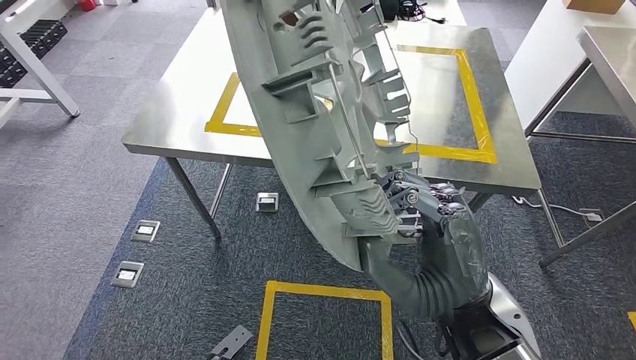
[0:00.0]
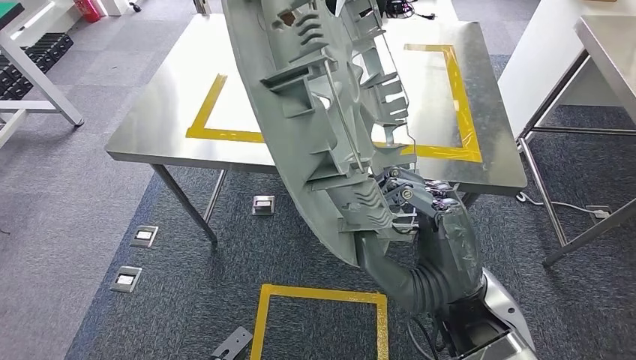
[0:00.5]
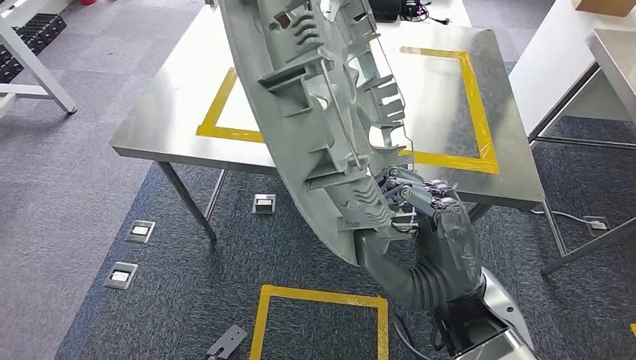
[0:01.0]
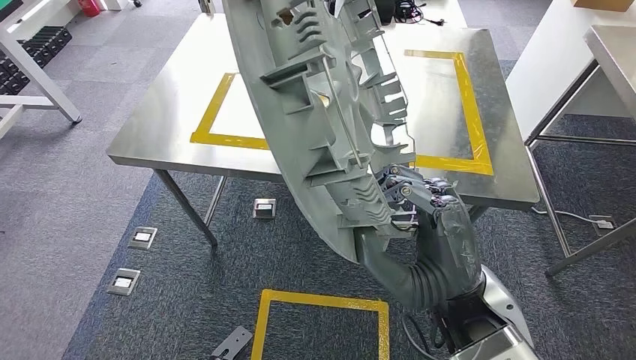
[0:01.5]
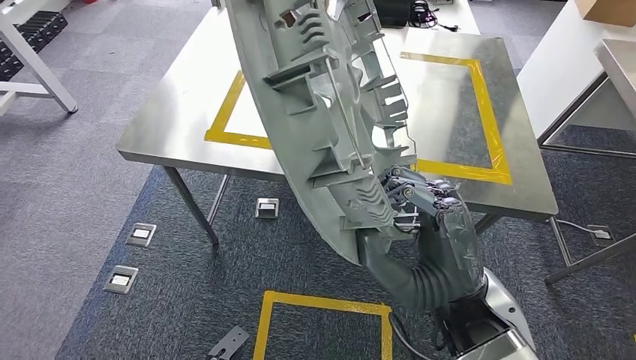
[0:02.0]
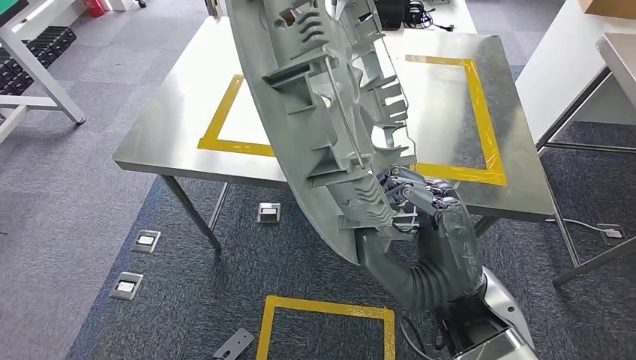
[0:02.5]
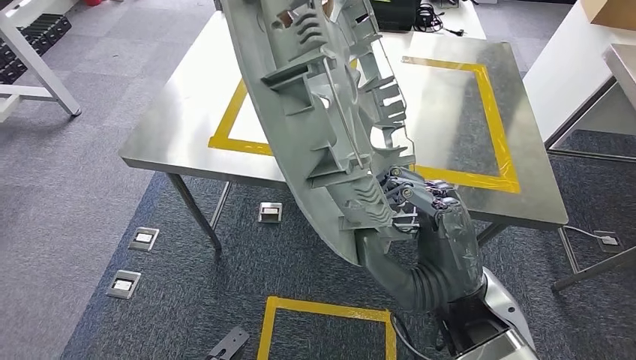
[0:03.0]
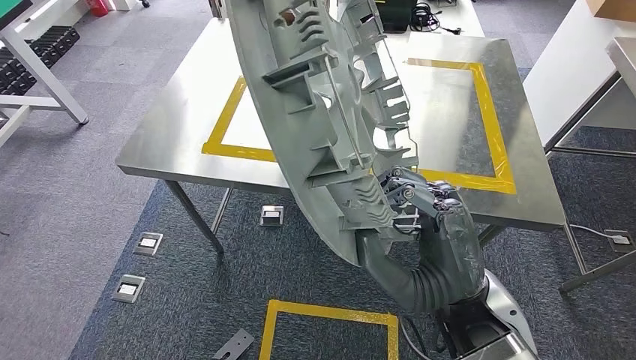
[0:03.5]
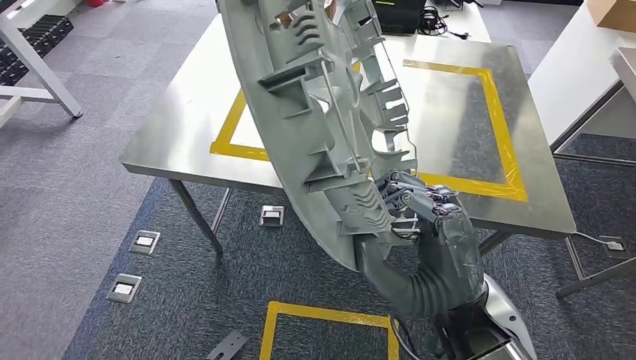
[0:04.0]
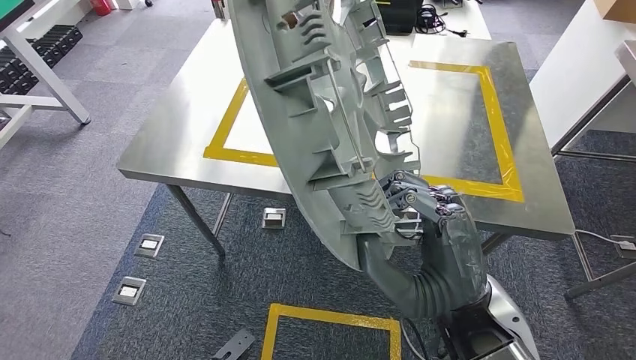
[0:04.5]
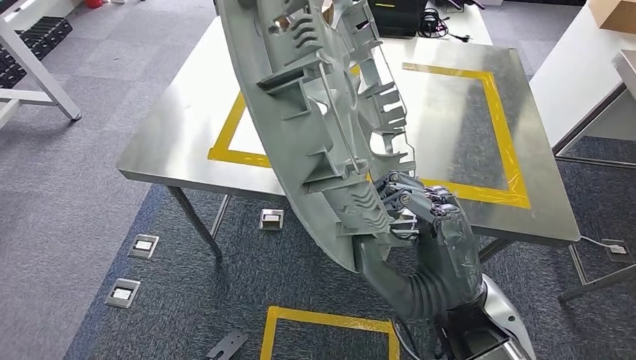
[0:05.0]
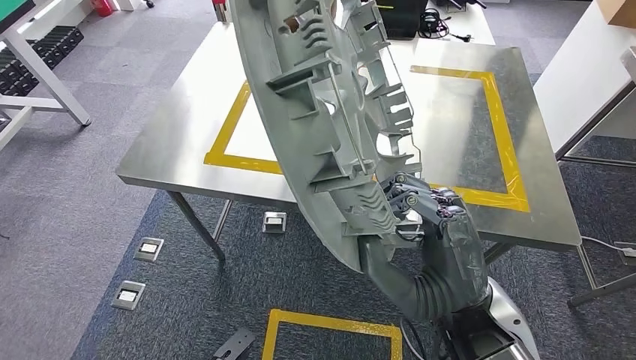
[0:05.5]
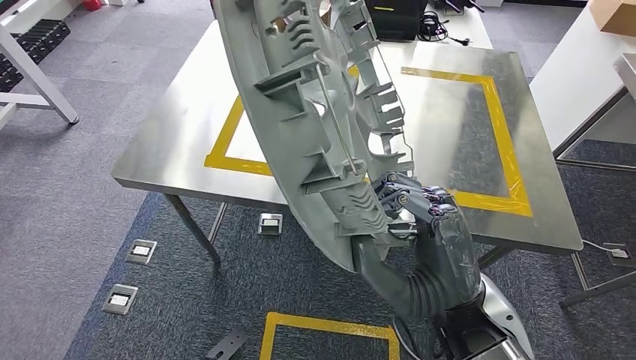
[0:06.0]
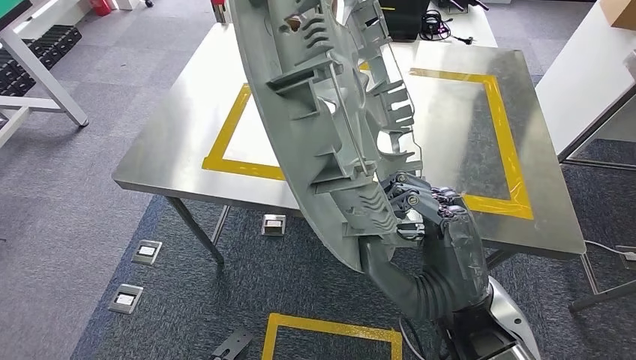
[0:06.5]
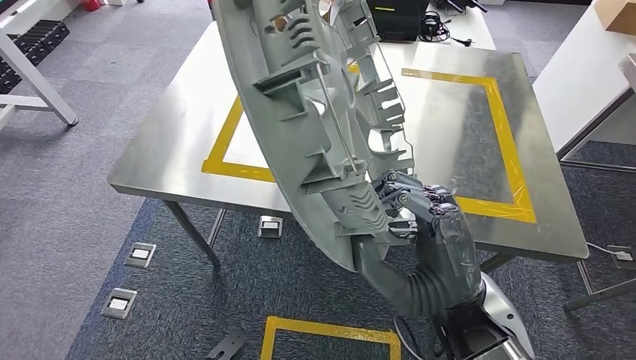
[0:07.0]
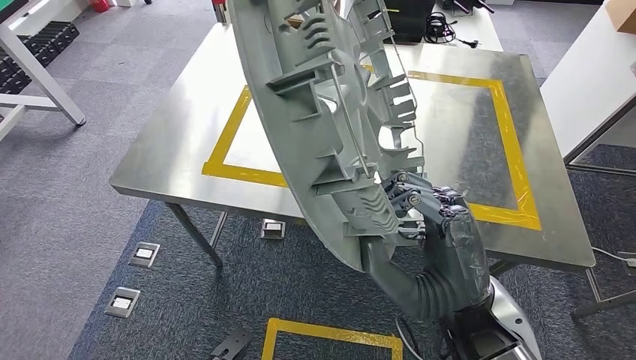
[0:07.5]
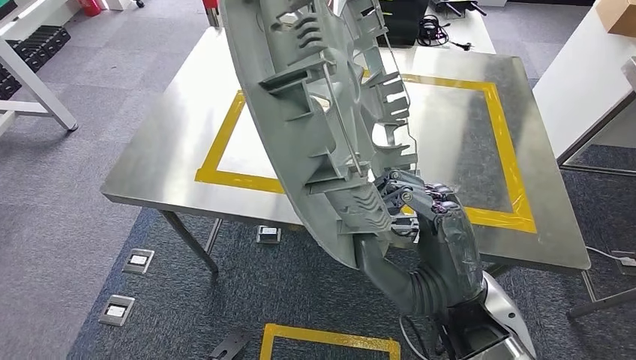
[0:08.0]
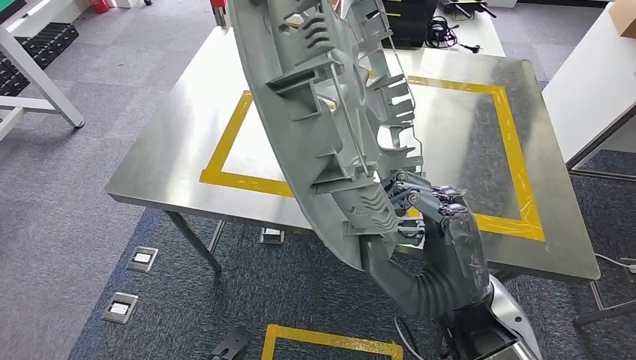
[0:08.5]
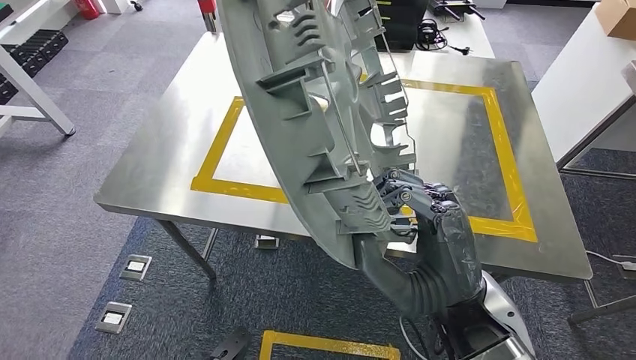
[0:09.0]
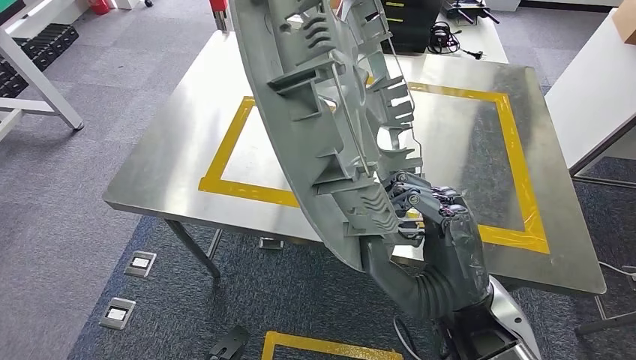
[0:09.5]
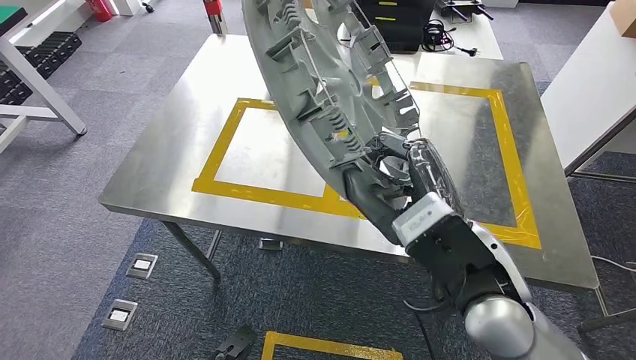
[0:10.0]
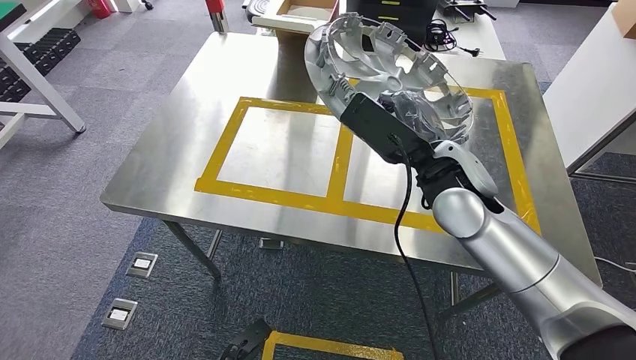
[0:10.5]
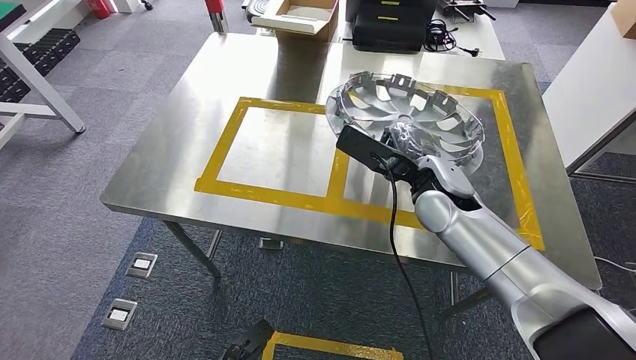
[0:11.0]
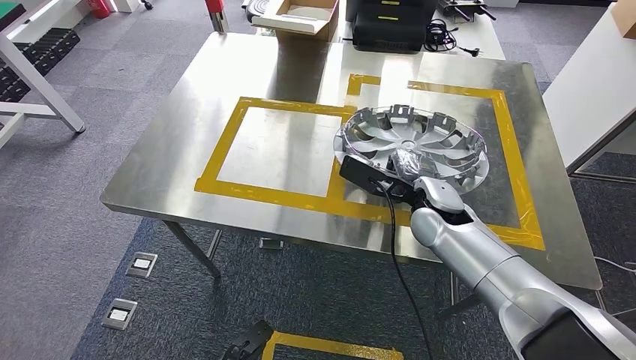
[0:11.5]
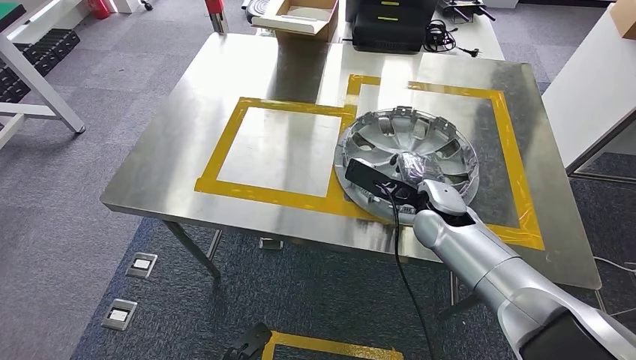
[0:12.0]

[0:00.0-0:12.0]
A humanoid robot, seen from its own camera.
0:04.0 to 0:06.0: Neither hand changes place.

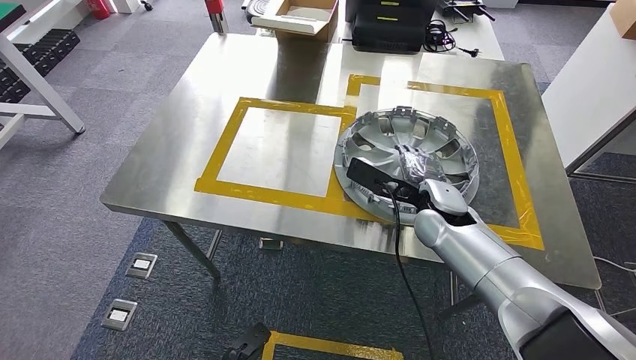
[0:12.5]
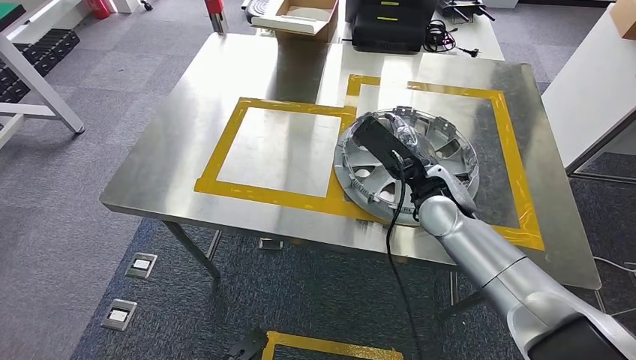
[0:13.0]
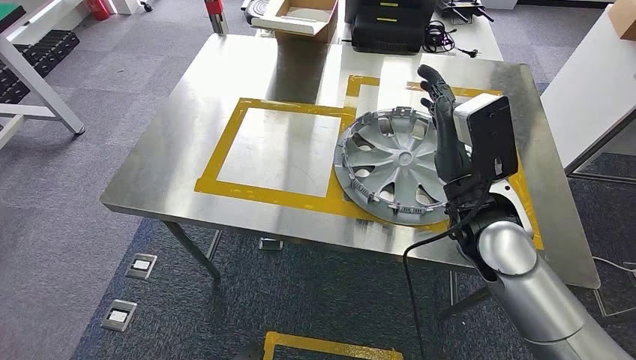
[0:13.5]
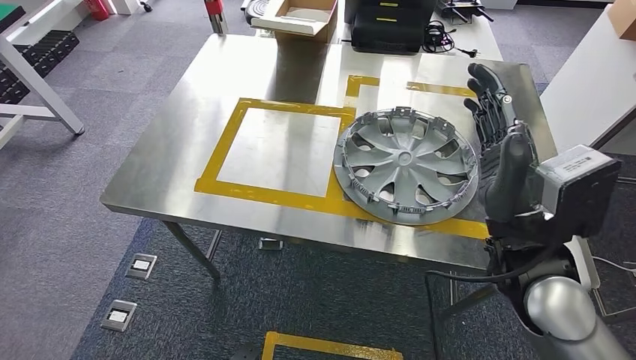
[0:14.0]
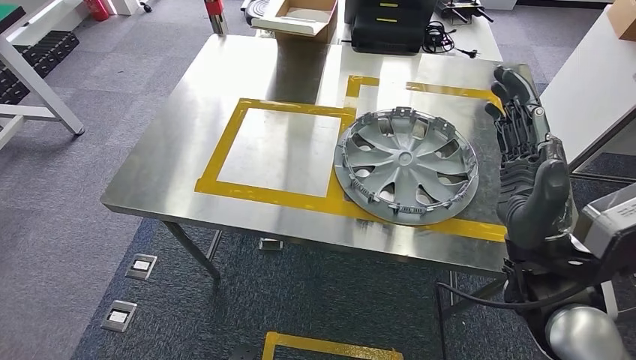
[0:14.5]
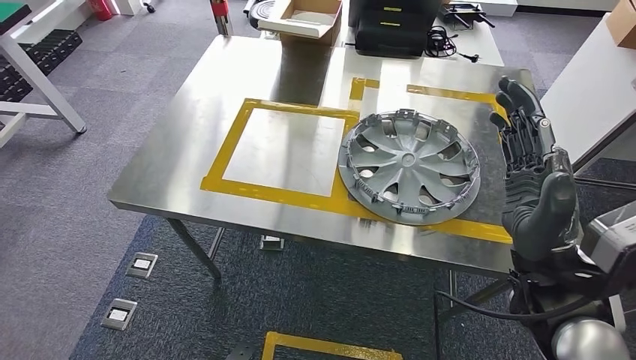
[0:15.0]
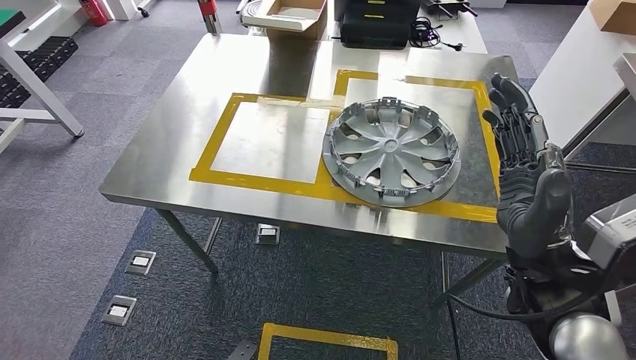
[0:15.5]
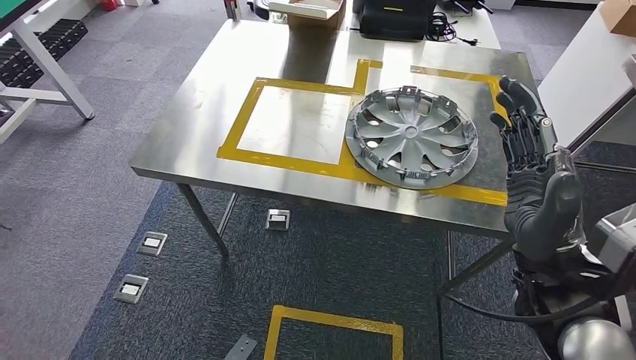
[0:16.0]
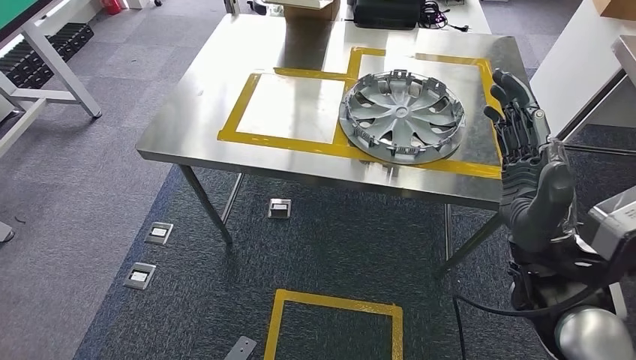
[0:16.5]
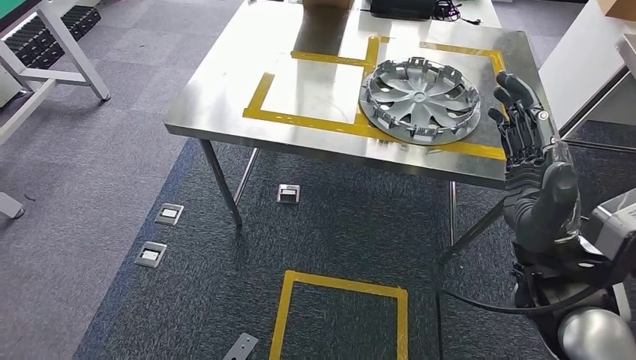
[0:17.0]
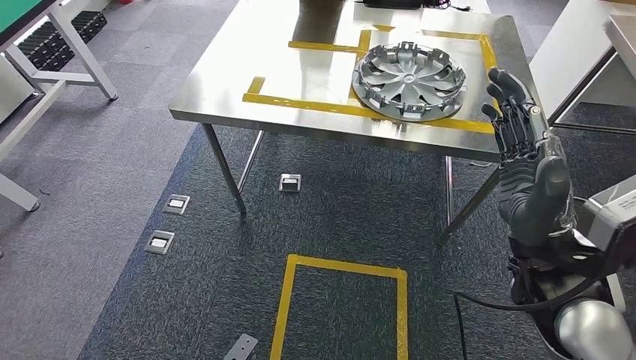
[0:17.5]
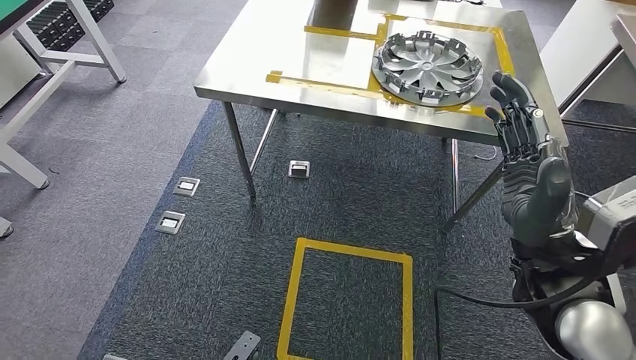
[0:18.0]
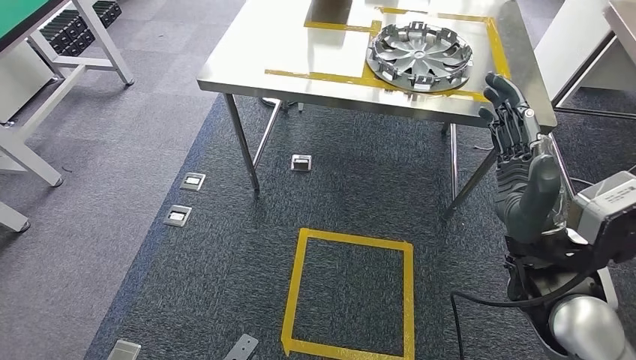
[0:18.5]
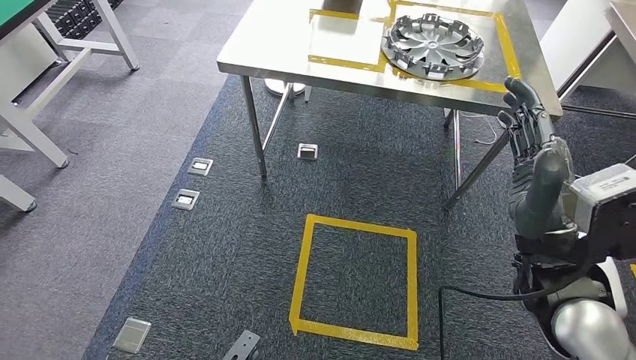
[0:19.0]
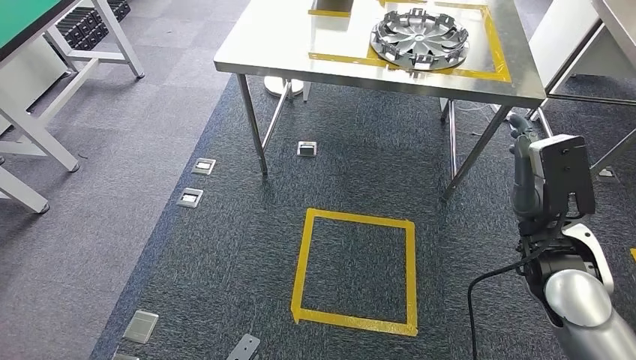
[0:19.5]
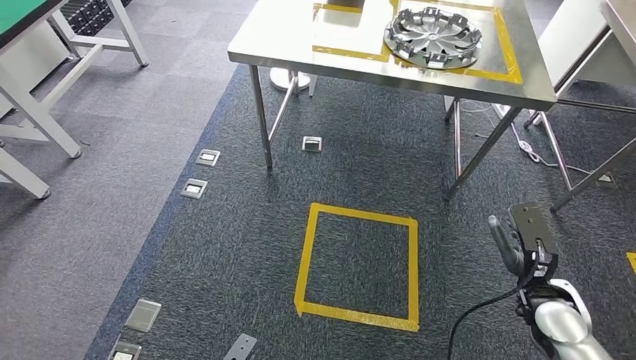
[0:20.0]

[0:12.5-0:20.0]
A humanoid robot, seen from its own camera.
Step, 0:13.0 to 0:20.0: Move to the initial position of the shelf.
0:12.5 to 0:14.5: The right hand travels backward and upward by roughly 20 cm. The left hand goes approximately 5 cm backward.

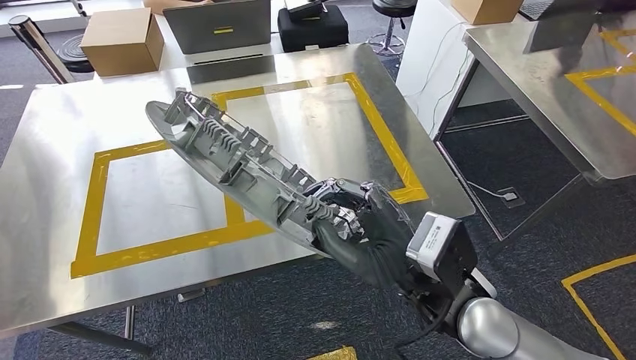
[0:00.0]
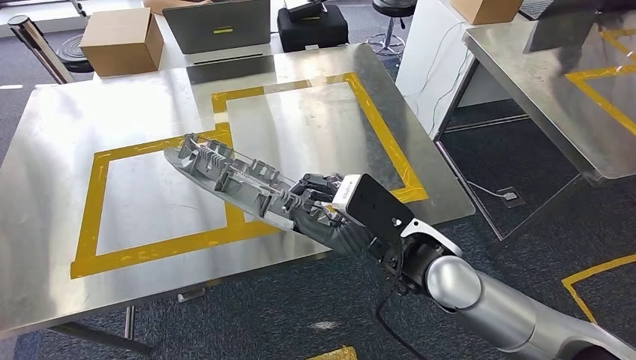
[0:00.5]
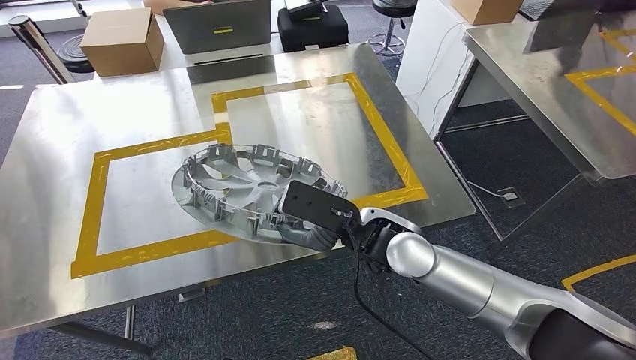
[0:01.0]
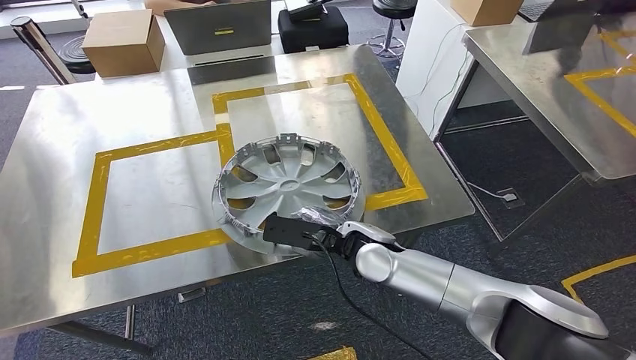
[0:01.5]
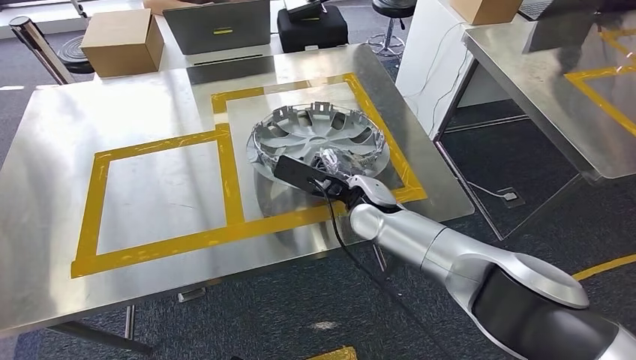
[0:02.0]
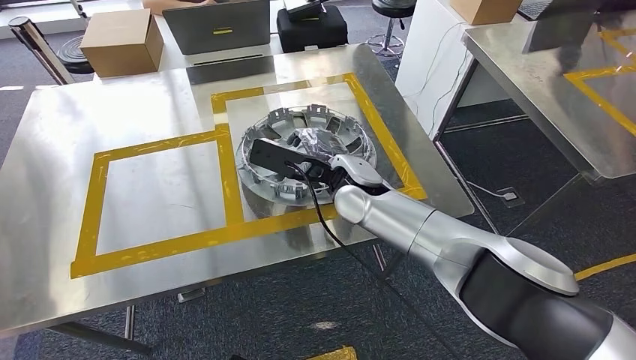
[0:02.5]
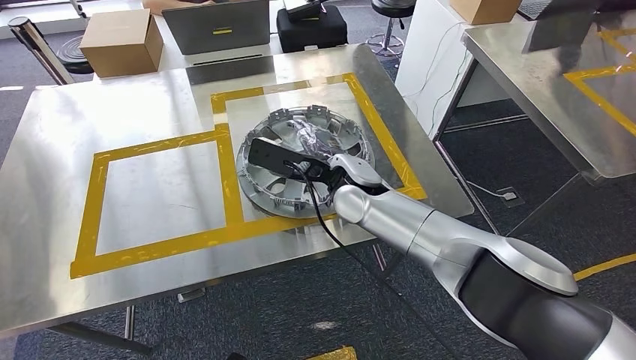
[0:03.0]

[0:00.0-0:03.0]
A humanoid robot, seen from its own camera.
0:00.0 to 0:01.5: The right hand is displaced forward and downward by some 15 cm.
0:01.5 to 0:03.0: The right hand shifts some 10 cm upward and forward.
